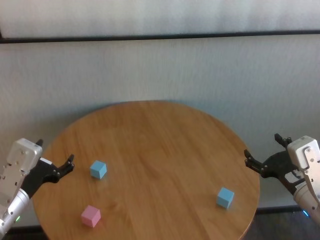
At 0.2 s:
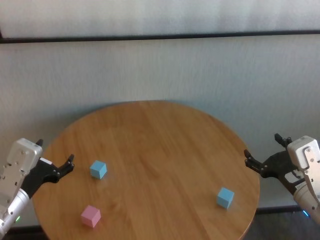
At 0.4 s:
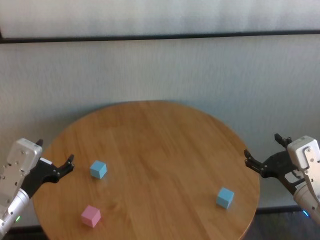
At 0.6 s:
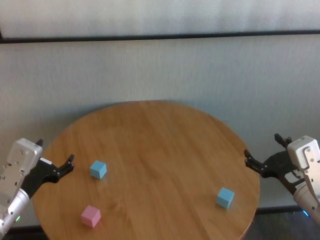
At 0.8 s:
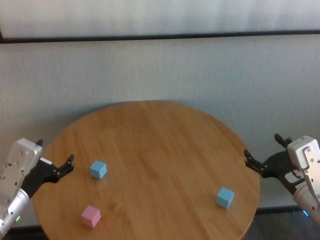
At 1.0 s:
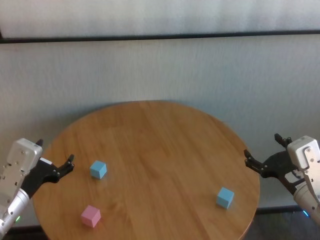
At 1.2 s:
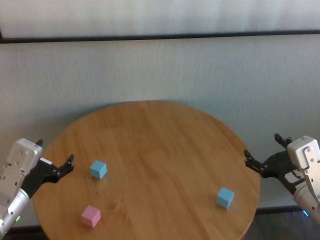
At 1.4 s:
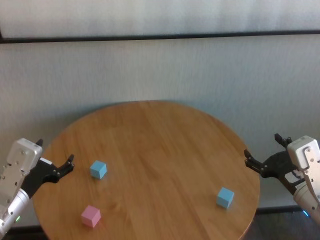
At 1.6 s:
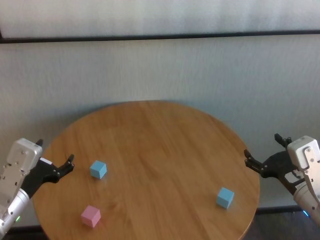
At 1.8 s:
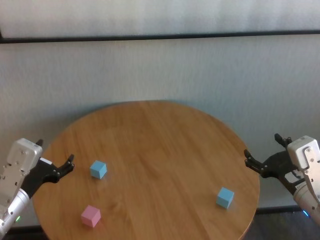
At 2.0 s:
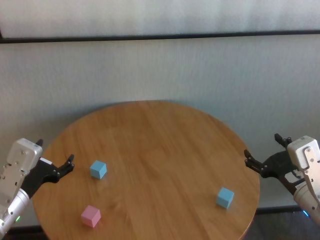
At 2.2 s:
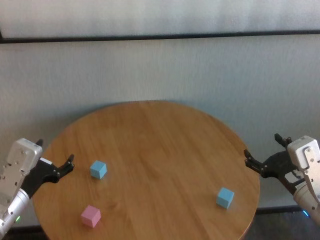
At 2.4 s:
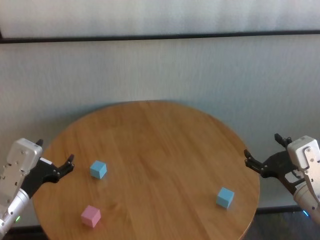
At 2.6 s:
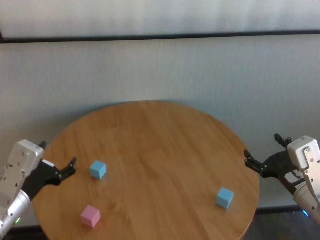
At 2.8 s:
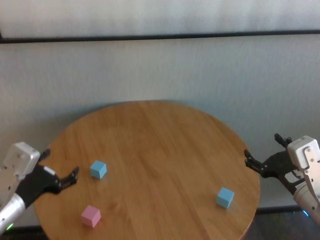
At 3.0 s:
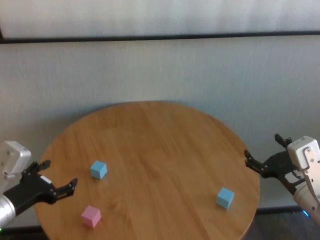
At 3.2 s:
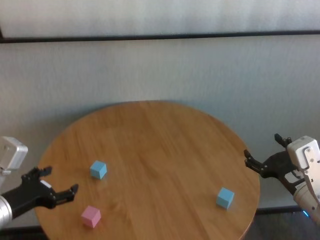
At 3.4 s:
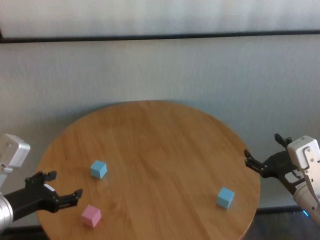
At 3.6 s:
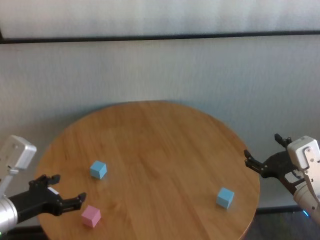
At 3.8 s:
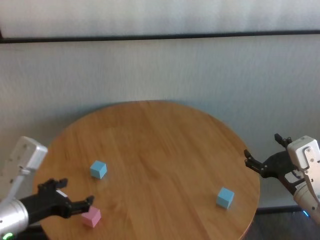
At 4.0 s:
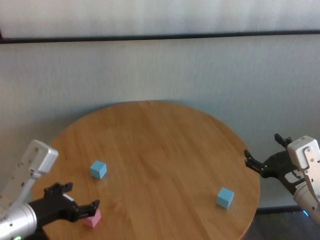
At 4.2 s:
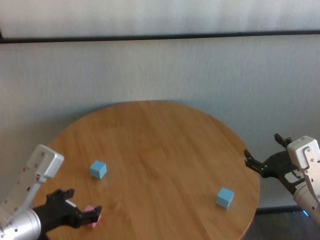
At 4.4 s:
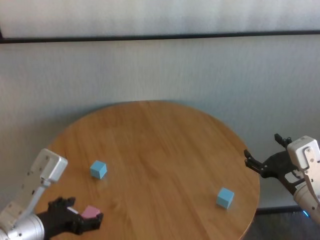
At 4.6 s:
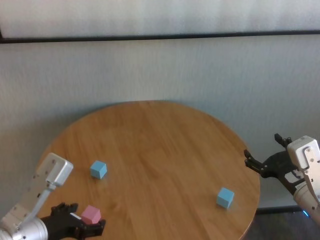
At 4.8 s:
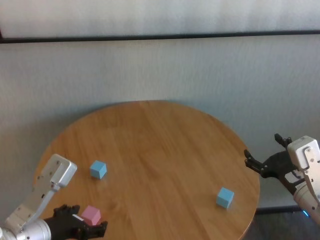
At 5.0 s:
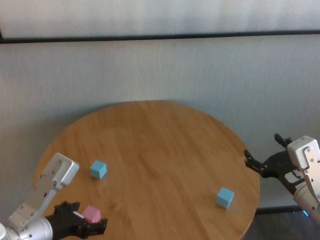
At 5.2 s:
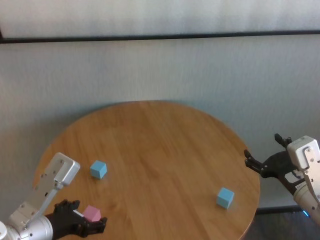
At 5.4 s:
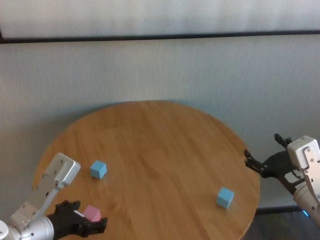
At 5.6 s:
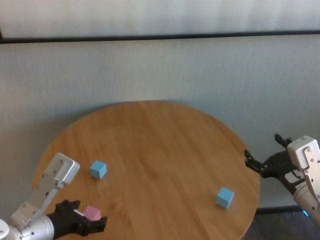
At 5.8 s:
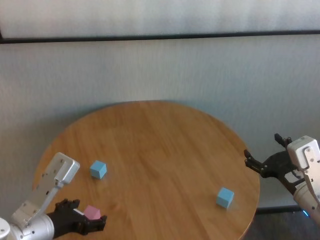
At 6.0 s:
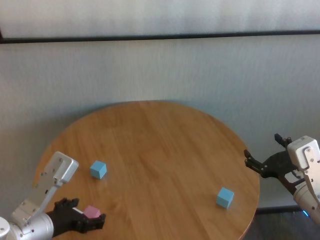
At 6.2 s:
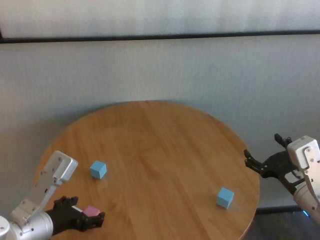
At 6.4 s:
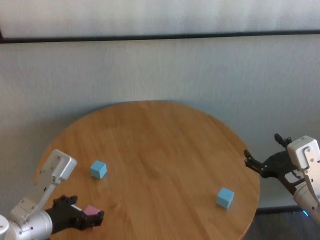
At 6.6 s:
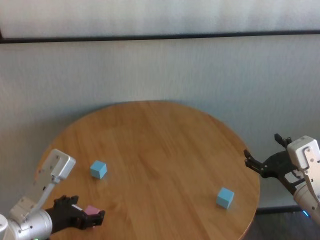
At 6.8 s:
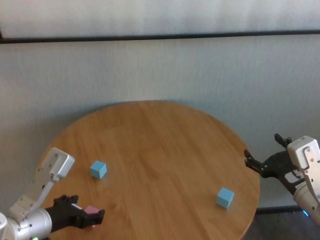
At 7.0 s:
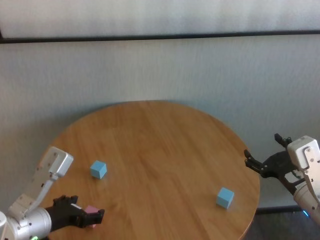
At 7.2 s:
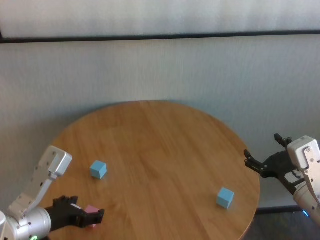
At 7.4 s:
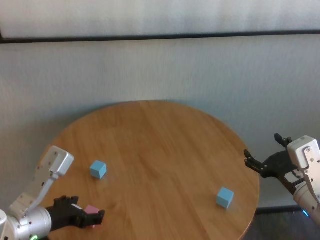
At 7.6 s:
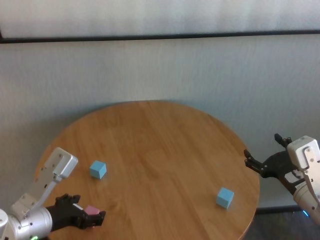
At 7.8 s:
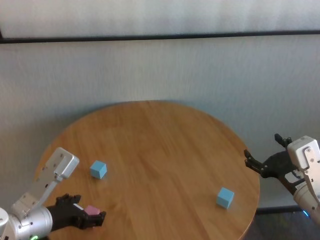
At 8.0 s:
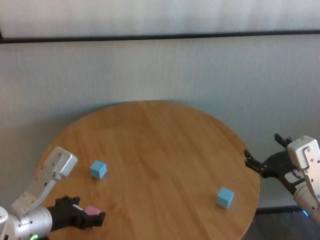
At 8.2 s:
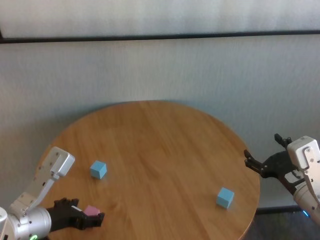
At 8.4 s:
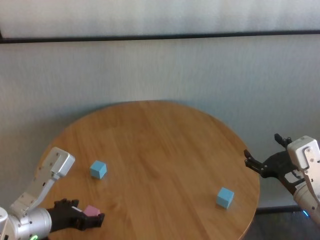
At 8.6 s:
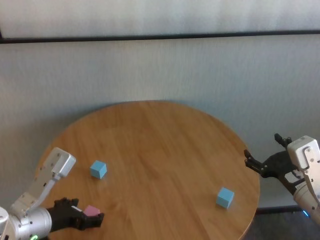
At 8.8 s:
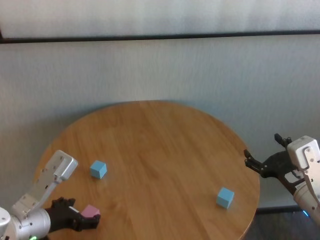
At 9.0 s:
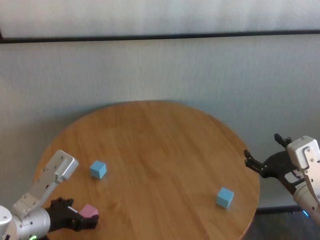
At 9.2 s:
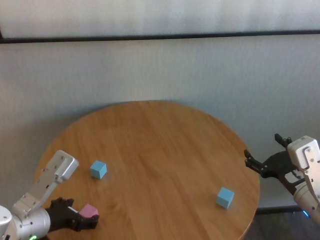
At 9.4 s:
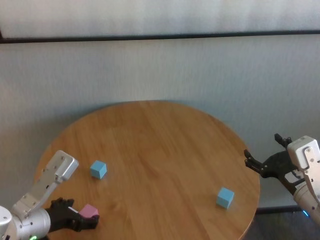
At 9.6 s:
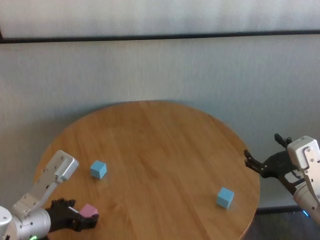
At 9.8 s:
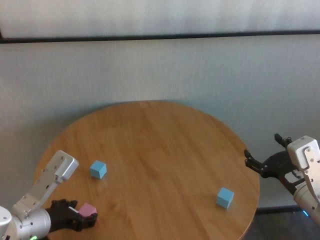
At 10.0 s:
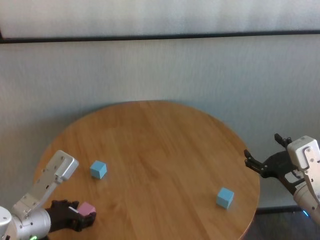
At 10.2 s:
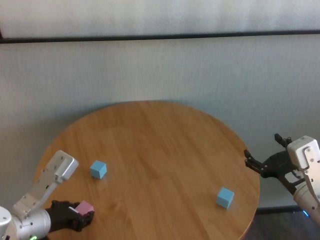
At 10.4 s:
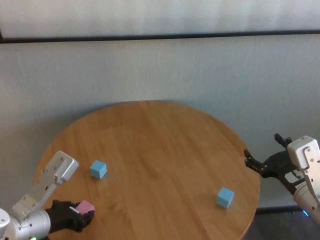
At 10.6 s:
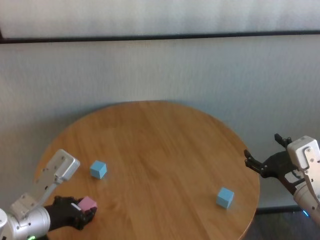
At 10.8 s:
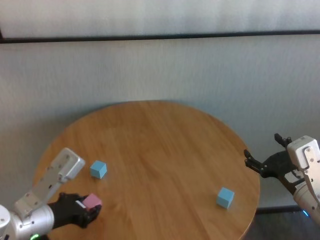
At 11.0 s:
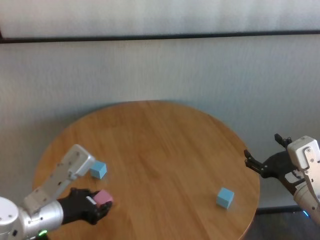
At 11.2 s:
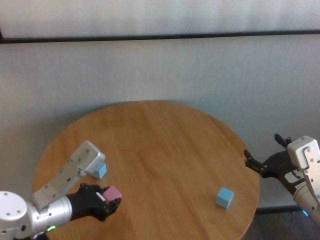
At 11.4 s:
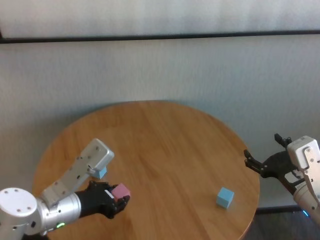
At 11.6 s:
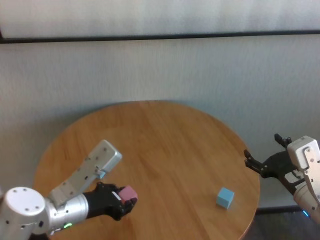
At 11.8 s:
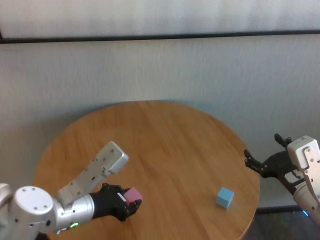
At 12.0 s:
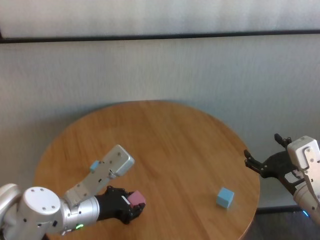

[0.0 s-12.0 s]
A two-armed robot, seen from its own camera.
Task of the whole recording: stack building blocks on the table.
Step, 0.0 to 10.2 s: Grasp the pink building block with left gripper.

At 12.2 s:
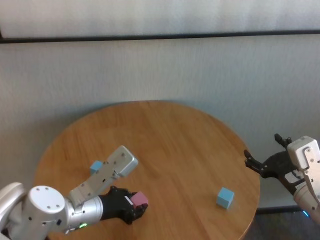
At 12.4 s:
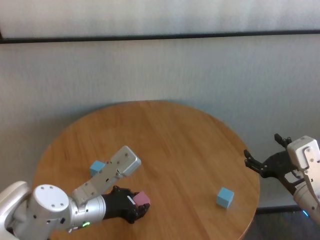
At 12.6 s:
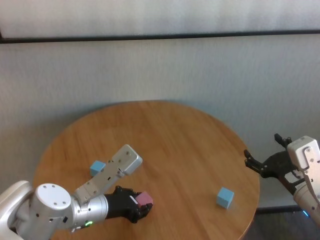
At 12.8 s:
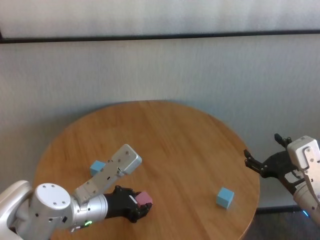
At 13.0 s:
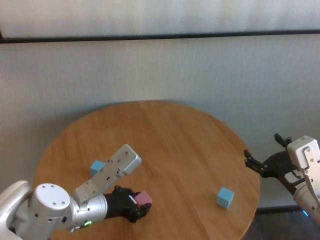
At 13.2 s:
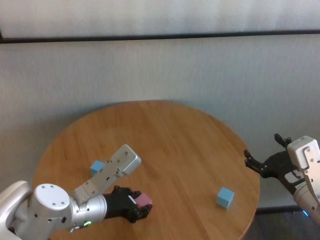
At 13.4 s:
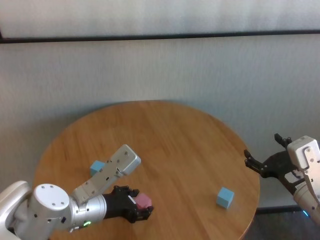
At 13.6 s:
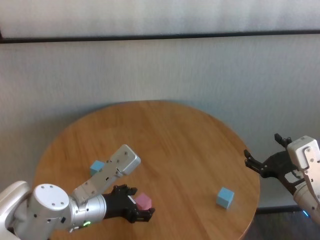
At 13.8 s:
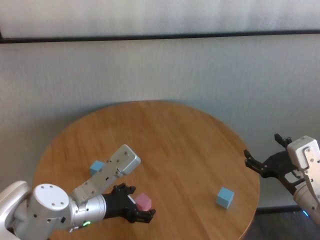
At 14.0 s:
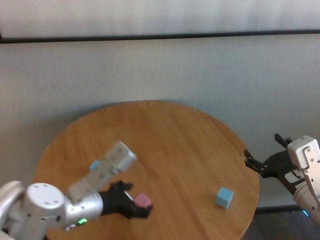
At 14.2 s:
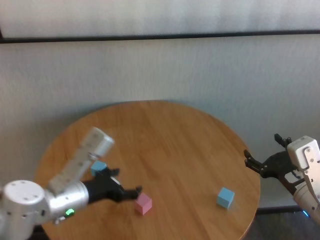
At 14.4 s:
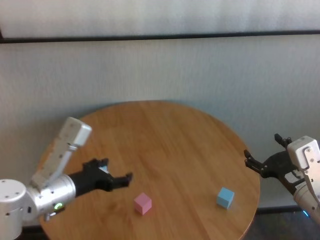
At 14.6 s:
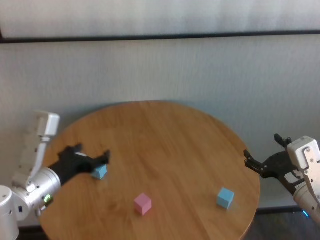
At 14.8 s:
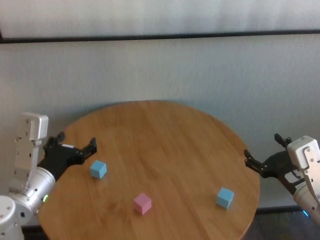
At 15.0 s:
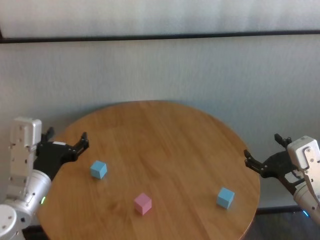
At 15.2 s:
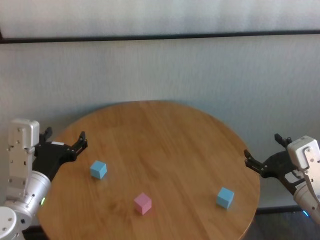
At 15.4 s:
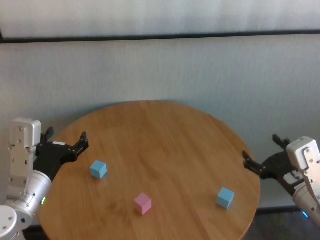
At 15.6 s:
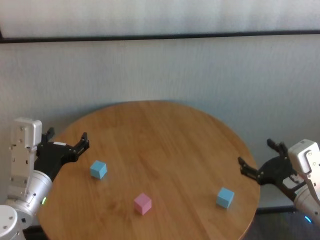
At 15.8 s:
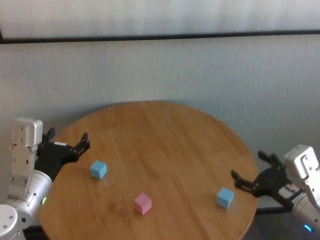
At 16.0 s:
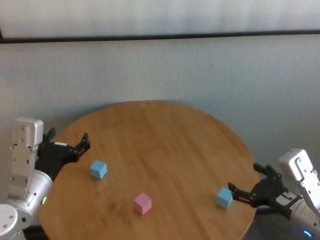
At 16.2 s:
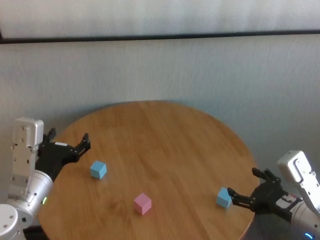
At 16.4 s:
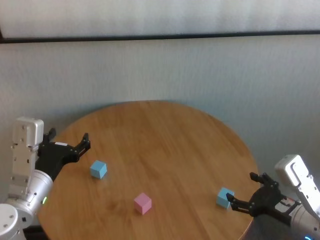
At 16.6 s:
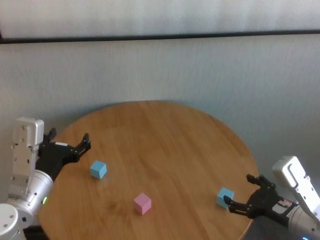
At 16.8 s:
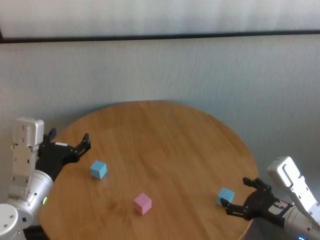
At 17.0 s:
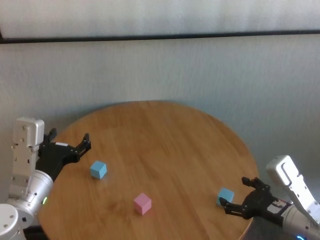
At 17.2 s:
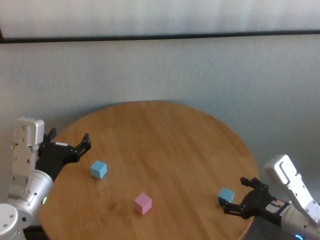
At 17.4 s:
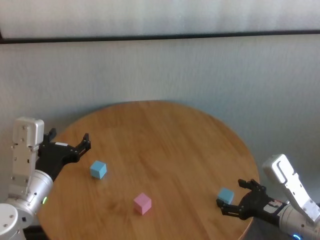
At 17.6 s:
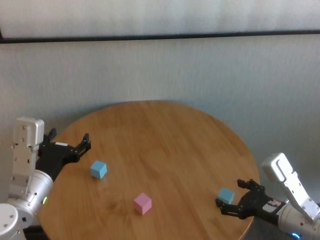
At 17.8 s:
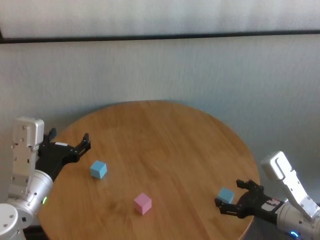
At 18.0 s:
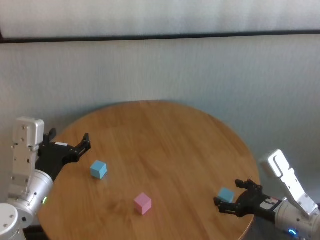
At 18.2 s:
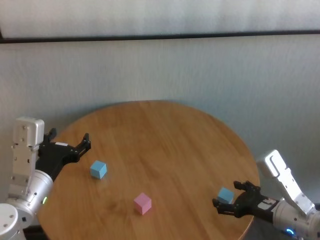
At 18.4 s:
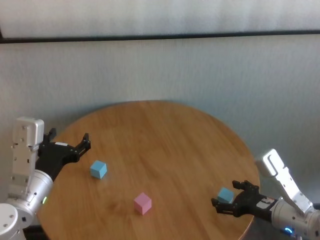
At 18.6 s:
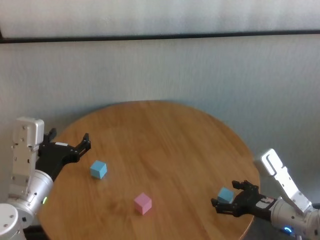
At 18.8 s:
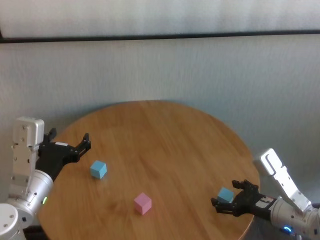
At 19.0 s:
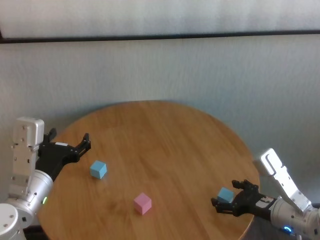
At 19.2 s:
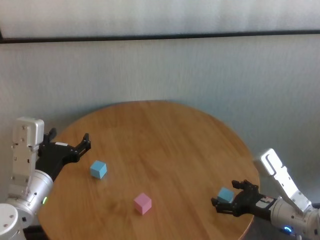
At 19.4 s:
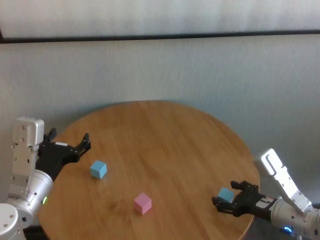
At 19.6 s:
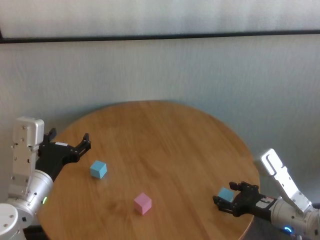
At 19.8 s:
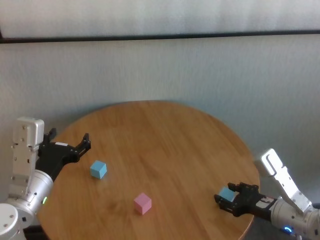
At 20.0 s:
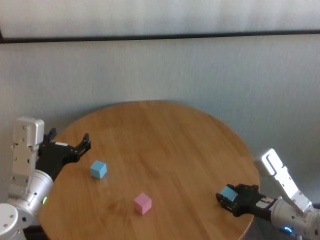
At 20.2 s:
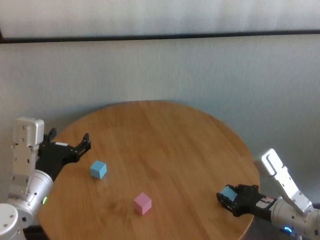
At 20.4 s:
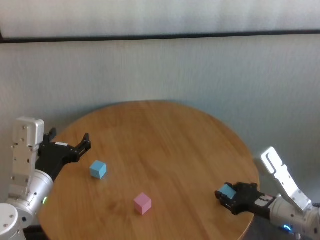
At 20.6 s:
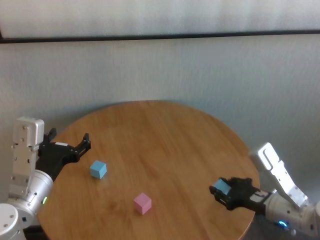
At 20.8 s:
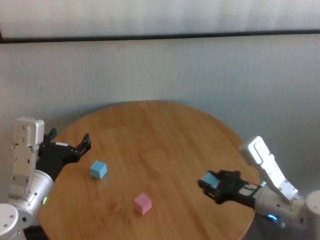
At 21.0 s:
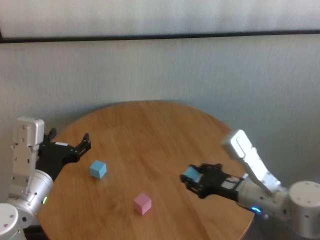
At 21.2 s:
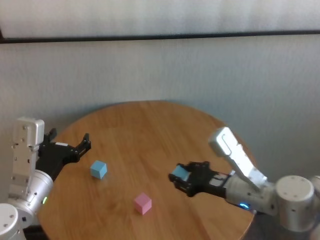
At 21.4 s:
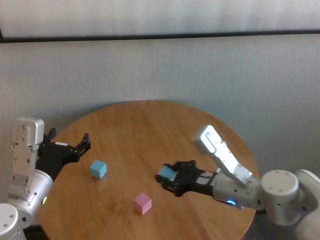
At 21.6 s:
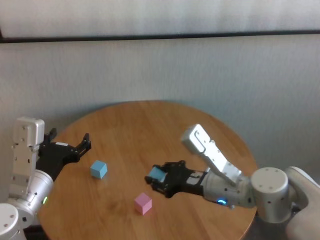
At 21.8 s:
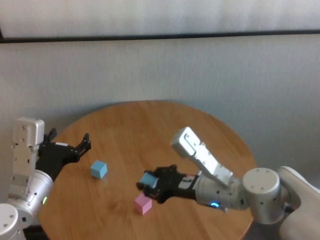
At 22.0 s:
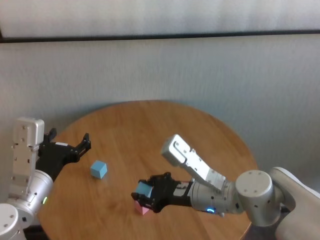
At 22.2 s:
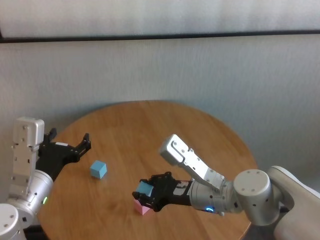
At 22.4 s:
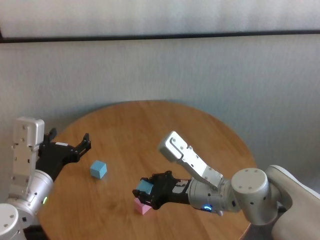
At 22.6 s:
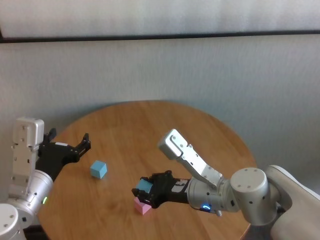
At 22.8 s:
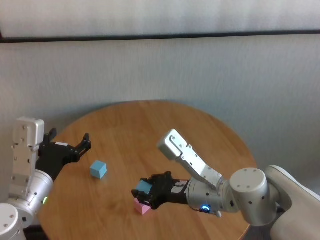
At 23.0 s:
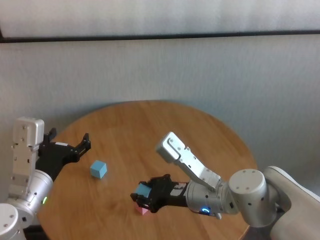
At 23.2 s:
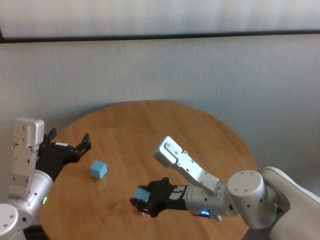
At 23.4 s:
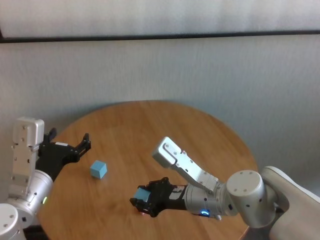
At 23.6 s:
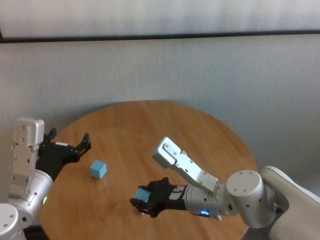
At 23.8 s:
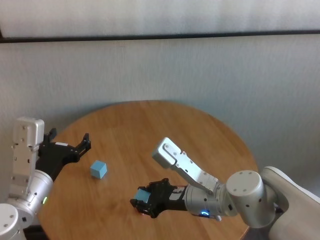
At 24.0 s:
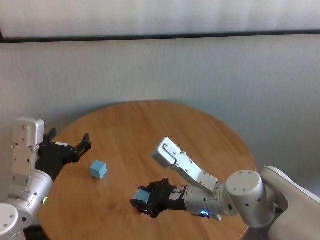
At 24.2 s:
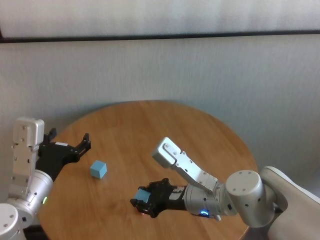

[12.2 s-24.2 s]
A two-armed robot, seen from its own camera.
Task of the whole recording: stack building blocks on the table.
Step, 14.0 to 20.0 s: Grasp the blue building block with right gripper.
